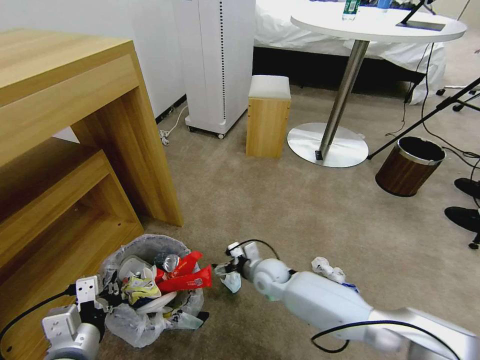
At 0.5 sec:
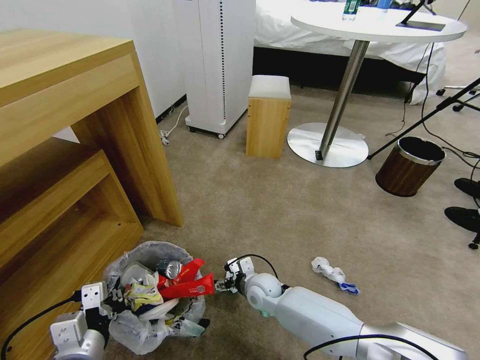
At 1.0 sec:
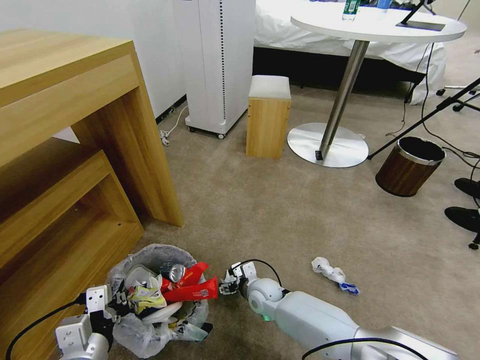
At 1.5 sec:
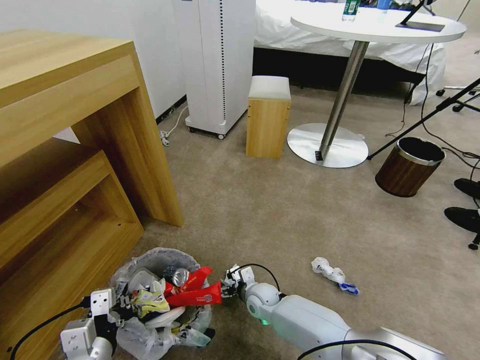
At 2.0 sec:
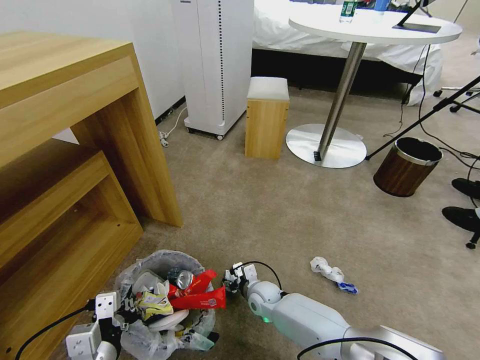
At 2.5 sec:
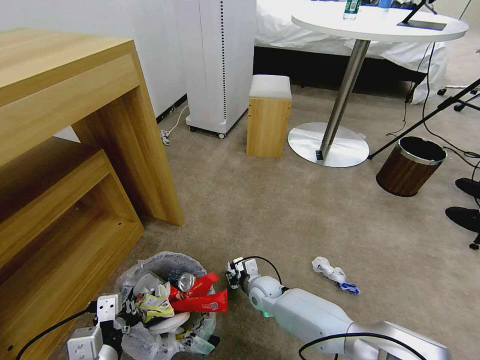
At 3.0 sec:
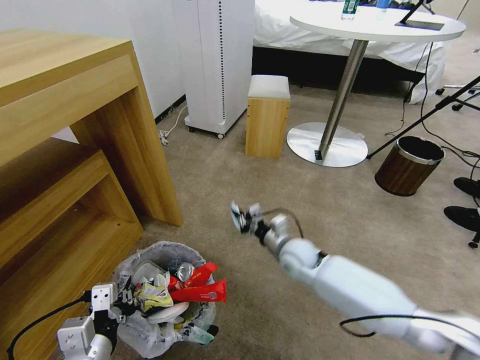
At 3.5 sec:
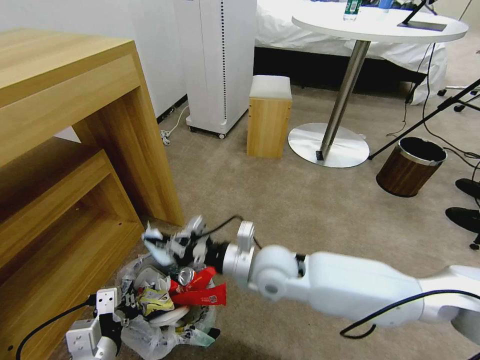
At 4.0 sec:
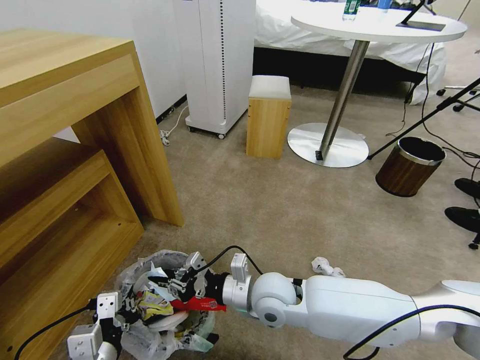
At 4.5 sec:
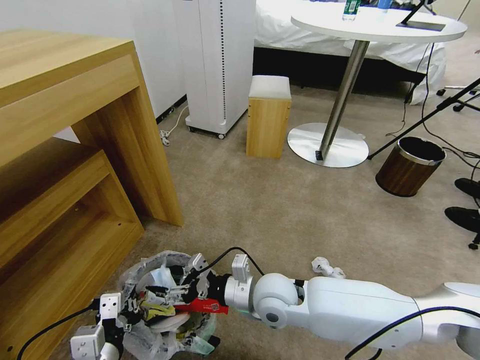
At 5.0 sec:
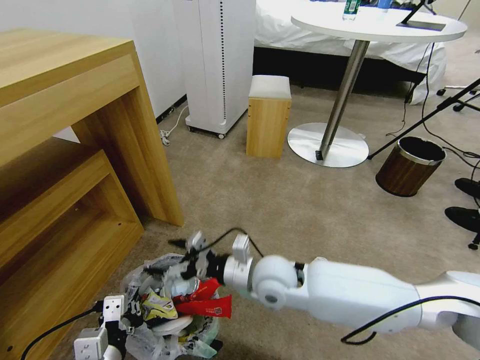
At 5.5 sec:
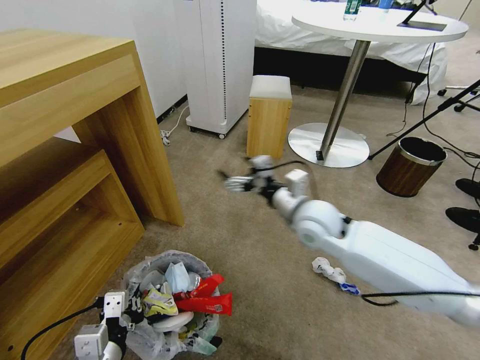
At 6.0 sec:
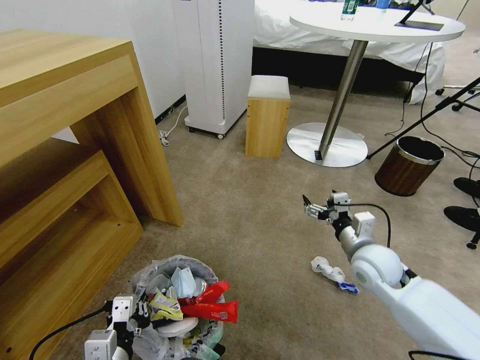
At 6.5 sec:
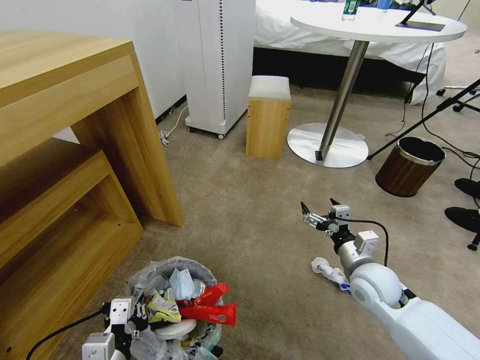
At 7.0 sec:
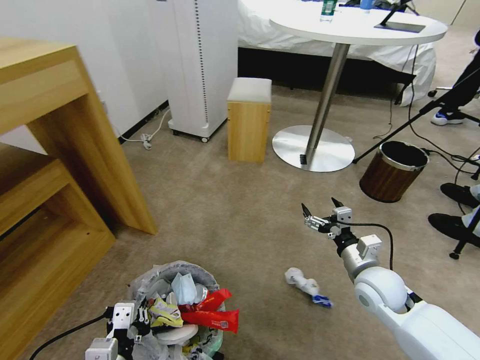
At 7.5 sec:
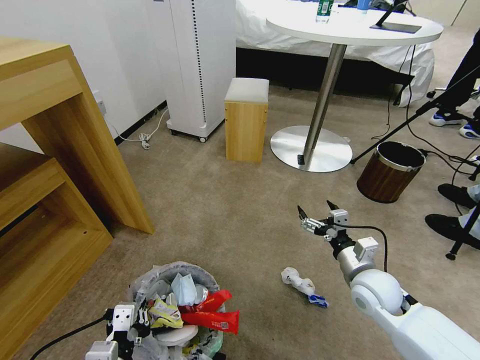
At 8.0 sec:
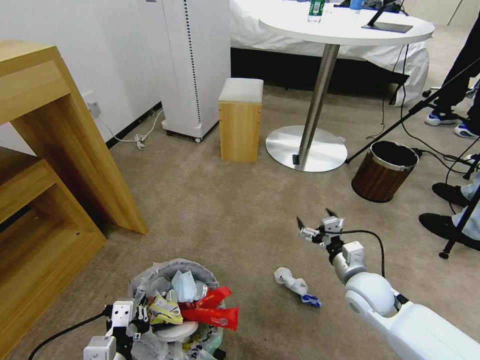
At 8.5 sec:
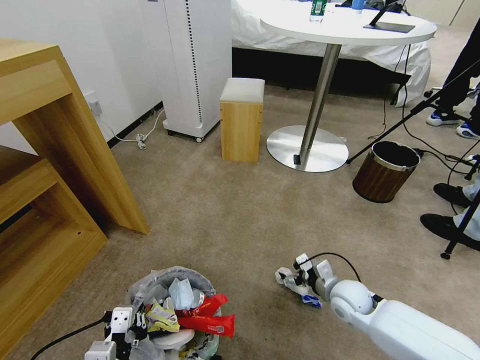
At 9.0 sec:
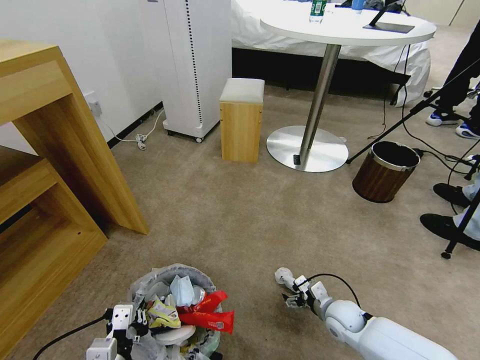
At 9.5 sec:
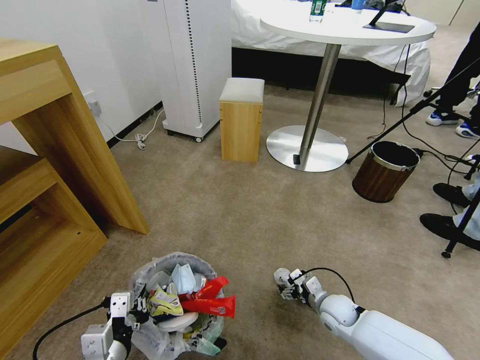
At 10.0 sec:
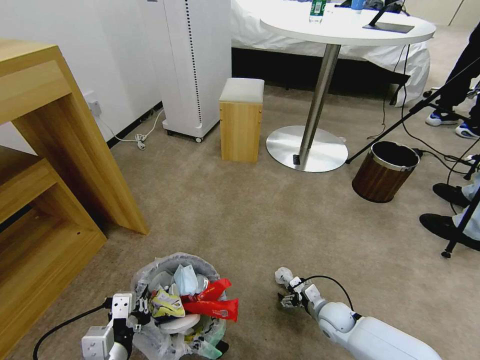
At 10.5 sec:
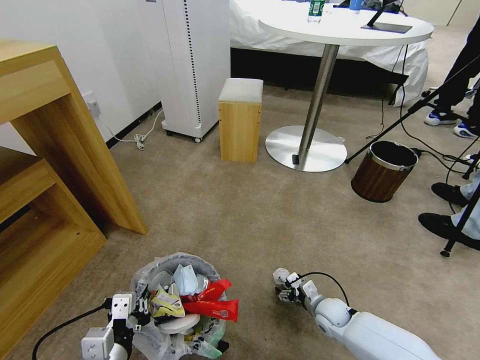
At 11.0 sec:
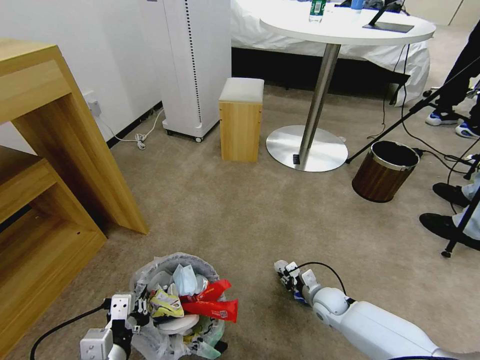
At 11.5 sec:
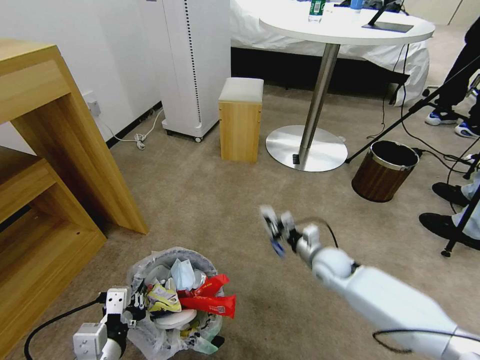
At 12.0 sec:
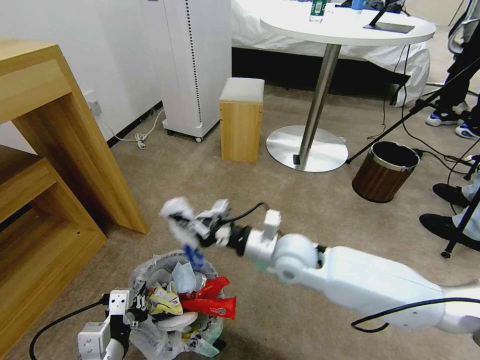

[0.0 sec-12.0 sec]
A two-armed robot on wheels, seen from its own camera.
Task of the whole recording: Pick up the trash bin and place the garbage on the floor into it.
0.0 sec to 2.0 sec: The right gripper is displaced downward by roughly 10 cm.
2.0 sec to 4.0 sec: The right gripper goes some 20 cm upward, and closes up.
4.0 sec to 6.0 sec: The right gripper moves to the right, about 25 cm, and opens its fingers.
6.0 sec to 8.0 sec: The right gripper goes about 5 cm downward.
8.0 sec to 10.0 sec: The right gripper is displaced downward by some 20 cm.
10.0 sec to 12.0 sec: The right gripper is displaced upward and to the left by approximately 30 cm, and closes.

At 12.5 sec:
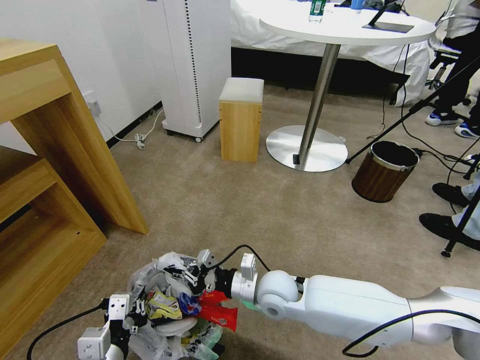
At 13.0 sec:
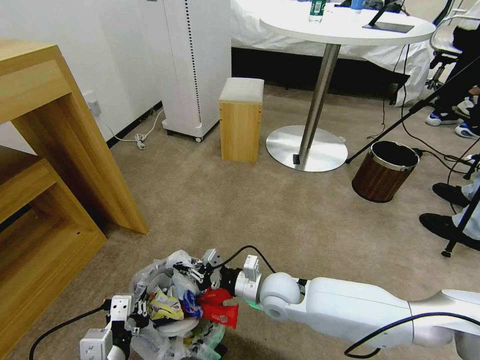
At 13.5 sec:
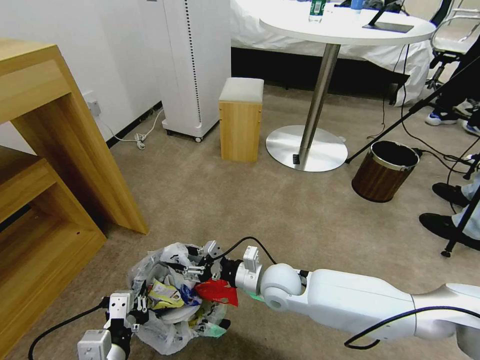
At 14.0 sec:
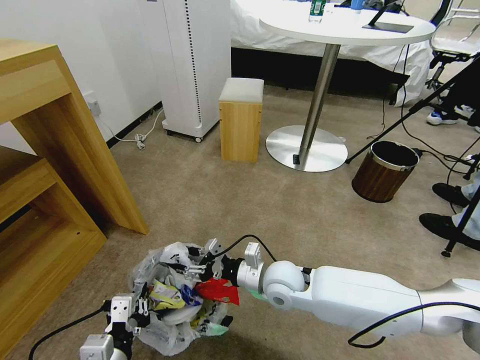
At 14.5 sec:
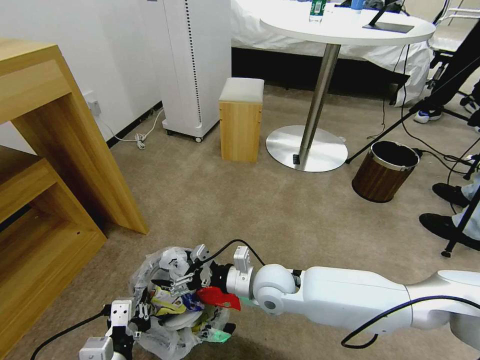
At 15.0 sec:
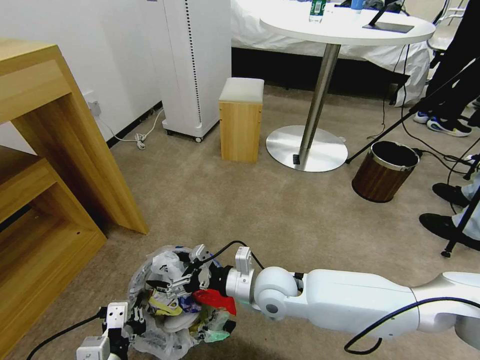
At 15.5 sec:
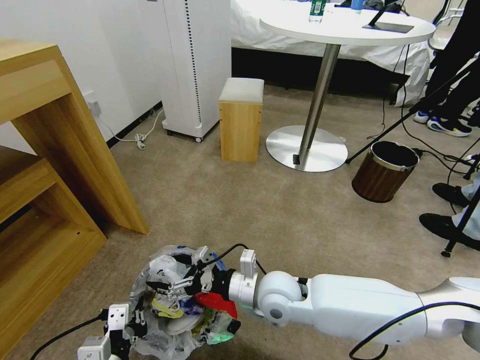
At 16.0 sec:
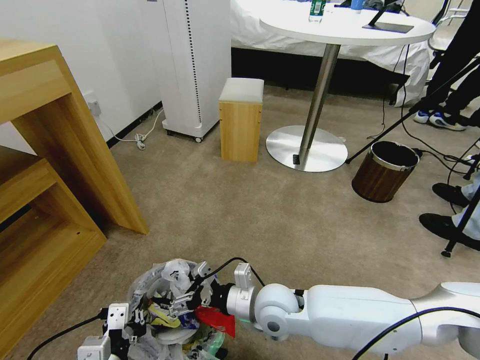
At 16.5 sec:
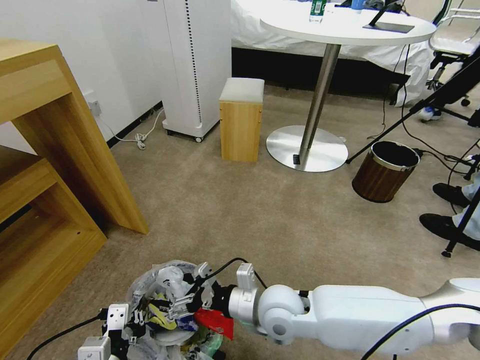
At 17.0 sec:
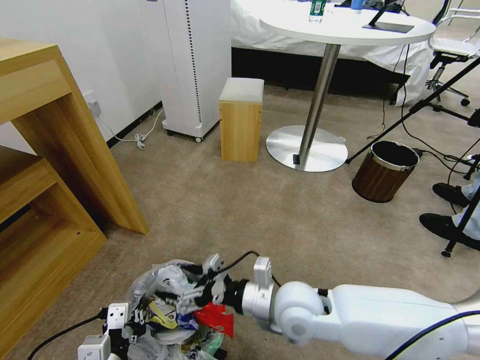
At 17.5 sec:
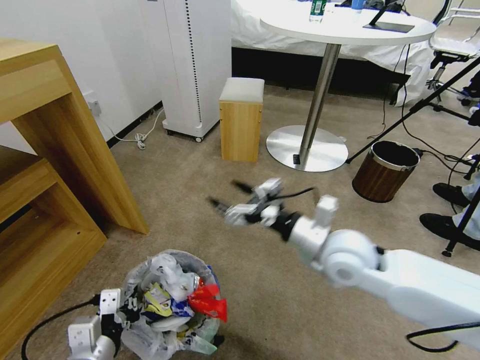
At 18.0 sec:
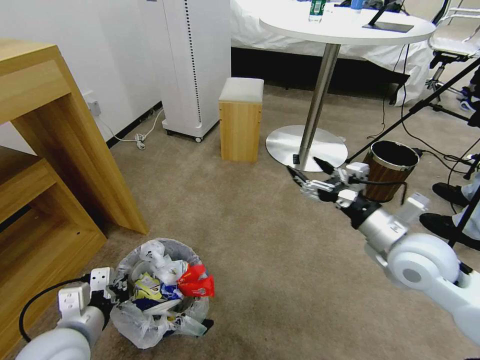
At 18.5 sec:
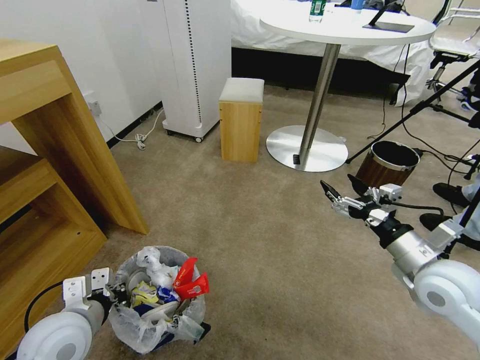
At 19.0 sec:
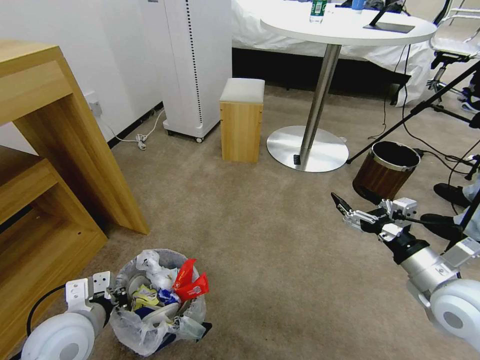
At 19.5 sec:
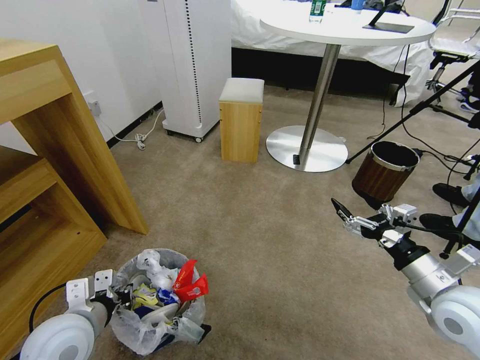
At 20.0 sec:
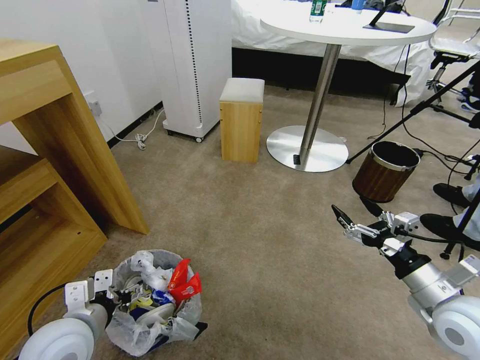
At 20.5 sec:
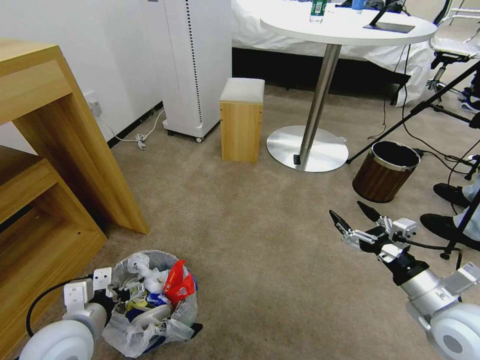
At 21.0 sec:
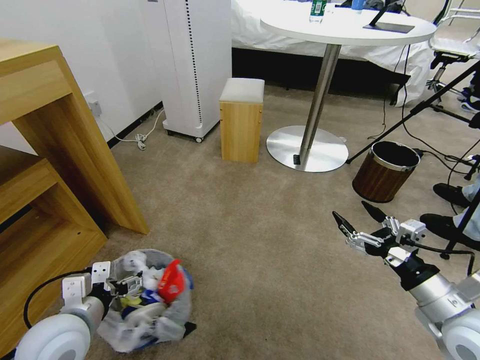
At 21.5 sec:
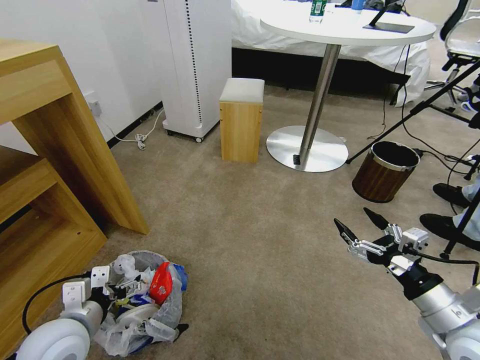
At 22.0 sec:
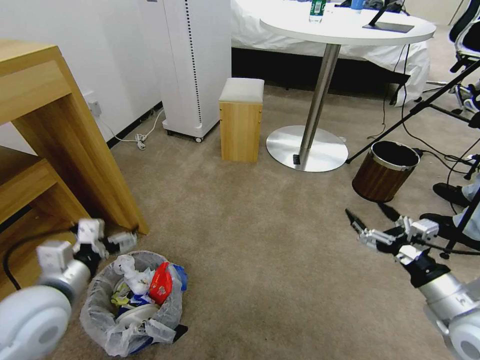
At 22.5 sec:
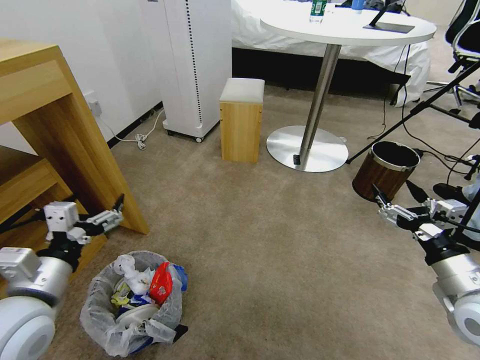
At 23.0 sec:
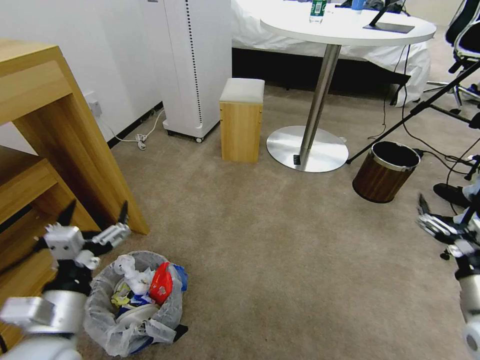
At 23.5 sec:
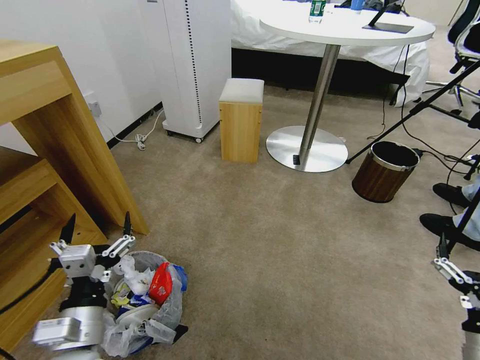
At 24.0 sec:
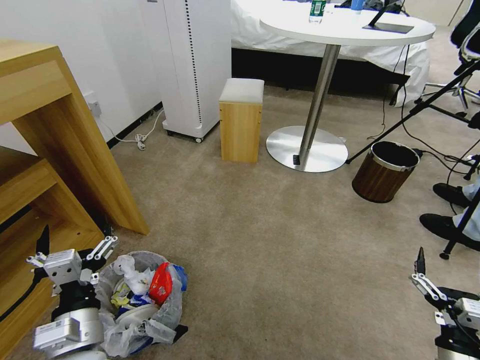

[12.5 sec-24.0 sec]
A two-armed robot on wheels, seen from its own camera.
Task of the whole recording: Pick up the trash bin and place the garbage on the floor into it.
12.5 sec to 14.5 sec: The right gripper opens.
14.5 sec to 16.5 sec: The right gripper heads backward, covering approximately 5 cm.
16.5 sec to 18.5 sec: The right gripper is displaced to the right by about 30 cm, while the left gripper shifts approximately 10 cm forward and to the left.
18.5 sec to 20.0 sec: The left gripper opens its fingers, while the right gripper shifts approximately 5 cm backward.
20.0 sec to 22.0 sec: The left gripper ends up some 5 cm from where it was.
22.0 sec to 24.0 sec: The right gripper shifts roughly 15 cm downward and backward. The left gripper heads to the right and backward, covering roughly 10 cm.

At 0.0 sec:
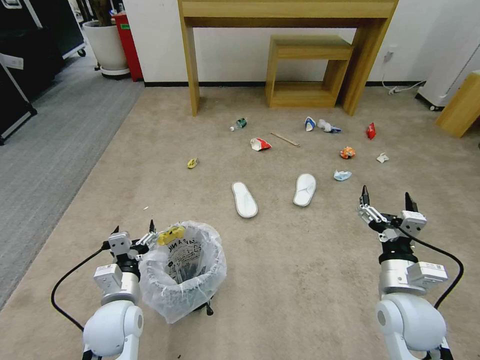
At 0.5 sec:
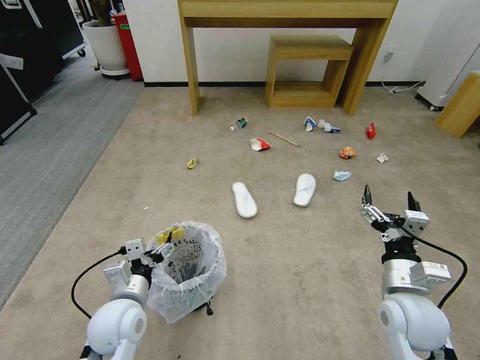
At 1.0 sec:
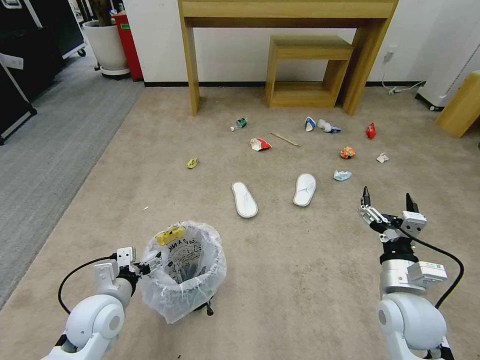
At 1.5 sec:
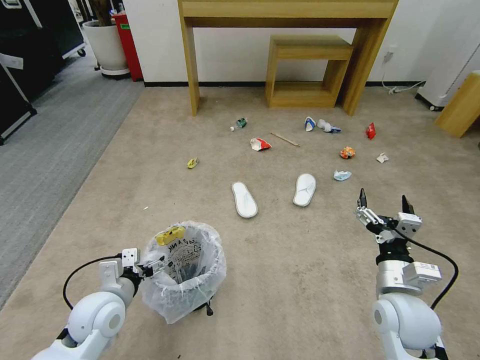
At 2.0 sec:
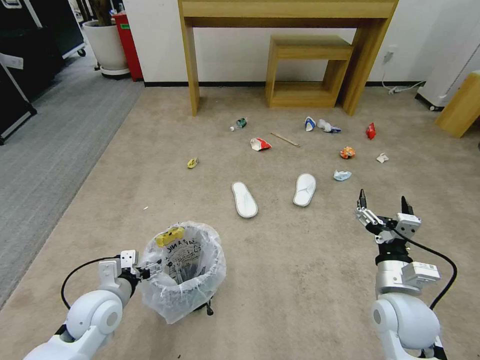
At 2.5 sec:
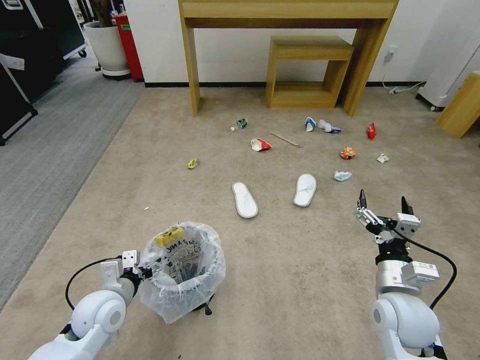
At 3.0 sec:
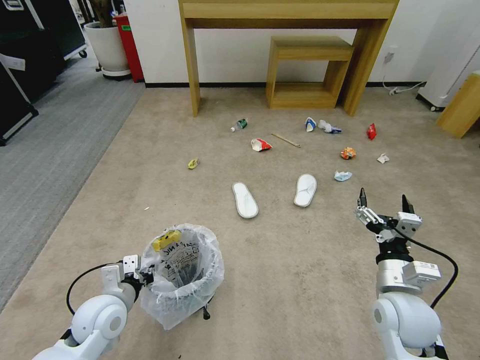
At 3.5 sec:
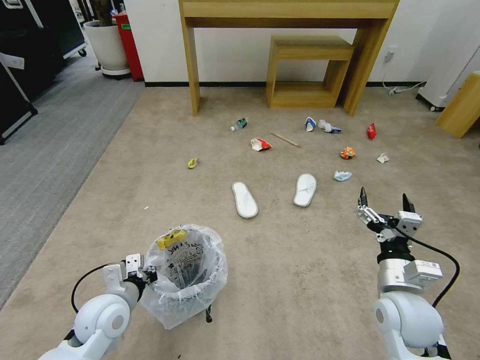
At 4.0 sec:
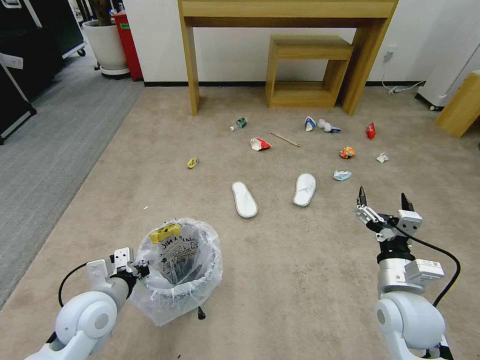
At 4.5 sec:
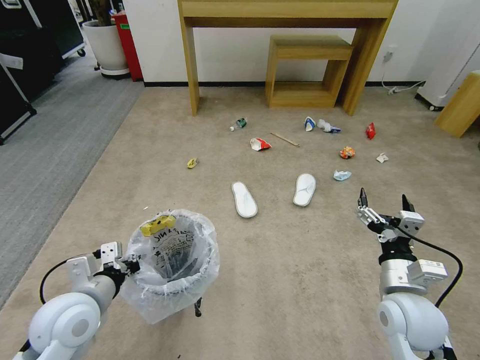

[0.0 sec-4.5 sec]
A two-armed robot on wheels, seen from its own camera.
Task of the whole recording: Pick up the trash bin and place the garbage on the floor into it.
0.0 sec to 2.0 sec: The left gripper moves to the left, some 5 cm.
2.0 sec to 4.5 sec: The left gripper heads upward, covering about 10 cm, and closes up.
